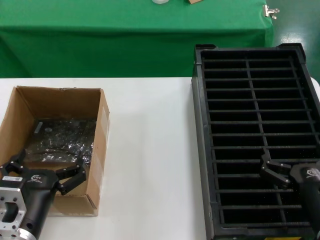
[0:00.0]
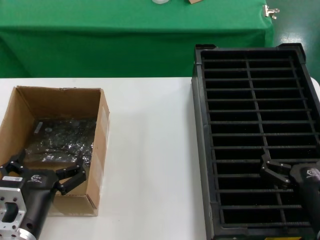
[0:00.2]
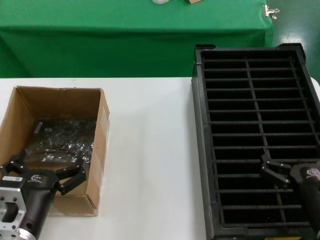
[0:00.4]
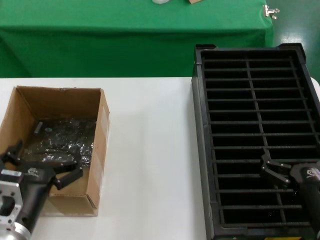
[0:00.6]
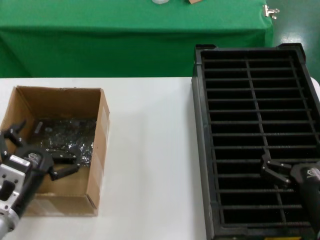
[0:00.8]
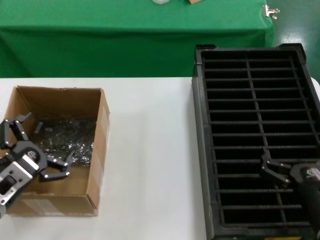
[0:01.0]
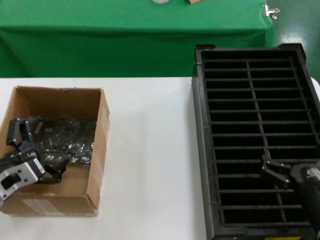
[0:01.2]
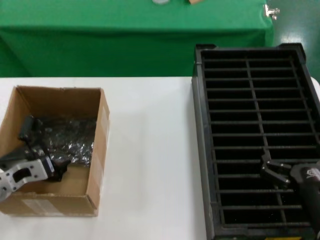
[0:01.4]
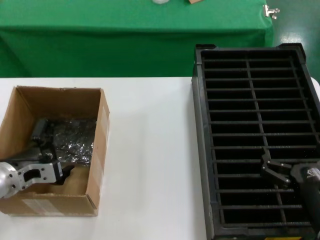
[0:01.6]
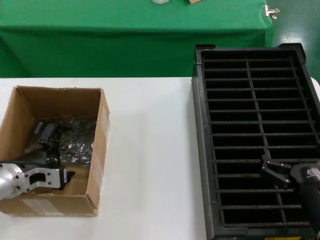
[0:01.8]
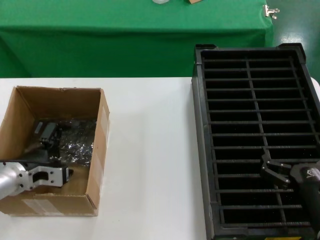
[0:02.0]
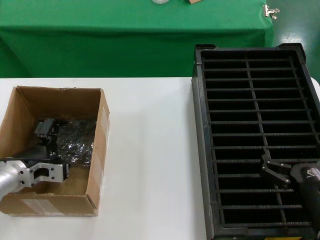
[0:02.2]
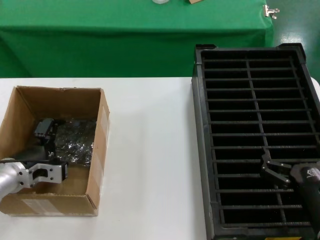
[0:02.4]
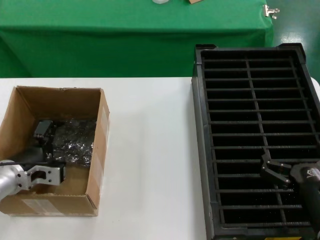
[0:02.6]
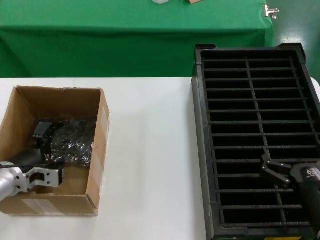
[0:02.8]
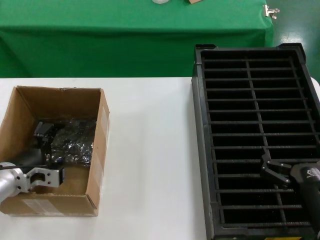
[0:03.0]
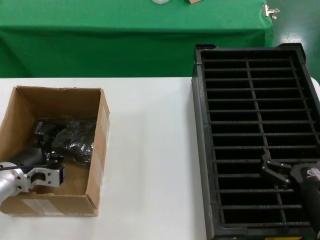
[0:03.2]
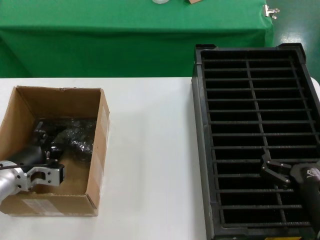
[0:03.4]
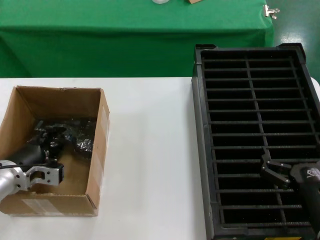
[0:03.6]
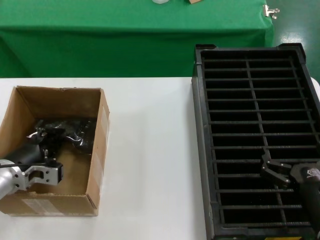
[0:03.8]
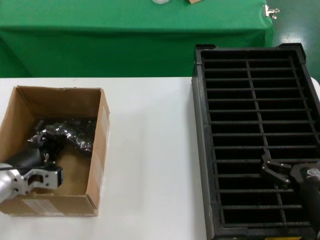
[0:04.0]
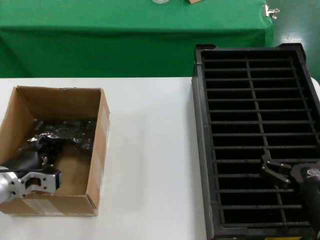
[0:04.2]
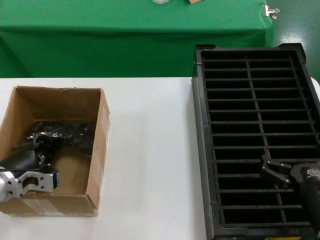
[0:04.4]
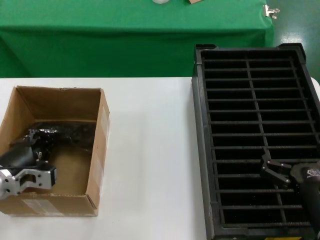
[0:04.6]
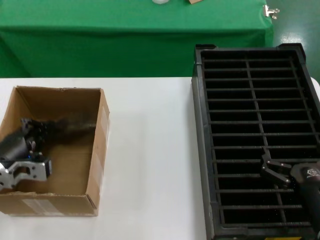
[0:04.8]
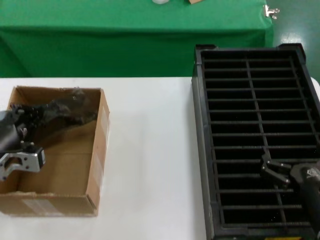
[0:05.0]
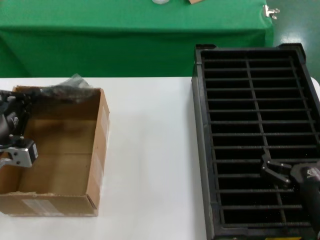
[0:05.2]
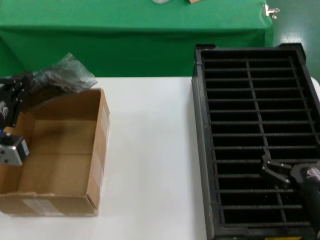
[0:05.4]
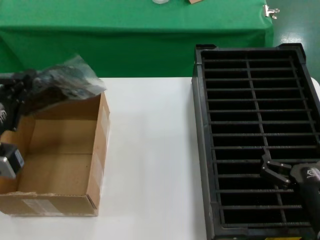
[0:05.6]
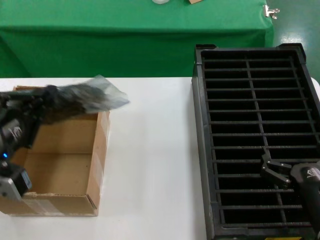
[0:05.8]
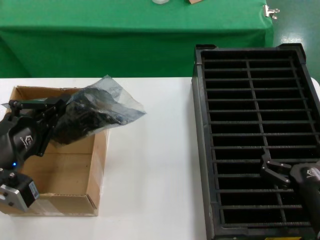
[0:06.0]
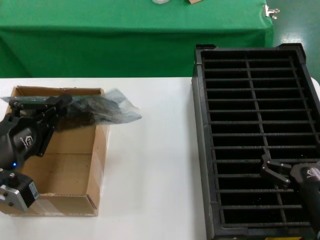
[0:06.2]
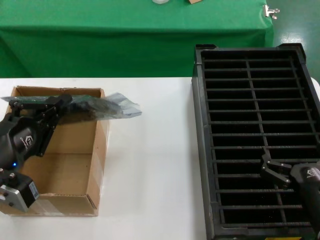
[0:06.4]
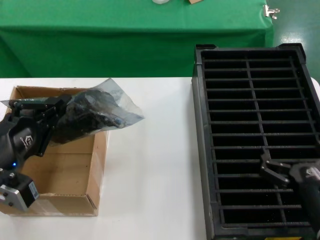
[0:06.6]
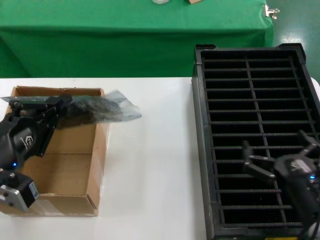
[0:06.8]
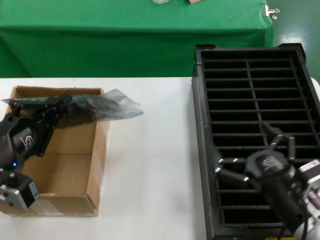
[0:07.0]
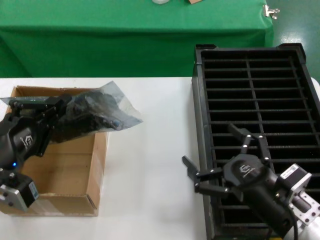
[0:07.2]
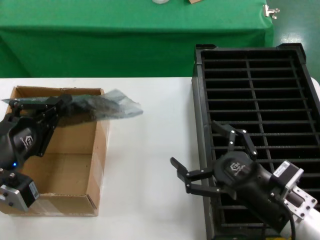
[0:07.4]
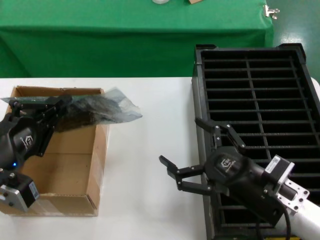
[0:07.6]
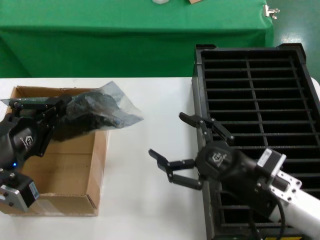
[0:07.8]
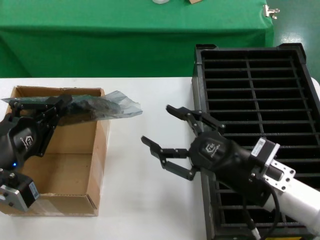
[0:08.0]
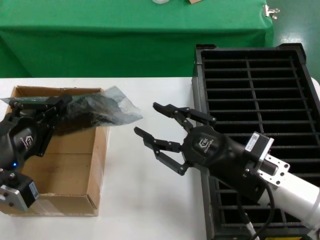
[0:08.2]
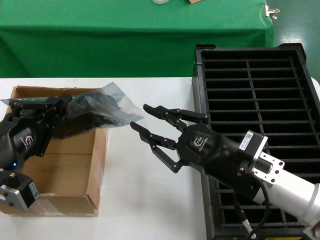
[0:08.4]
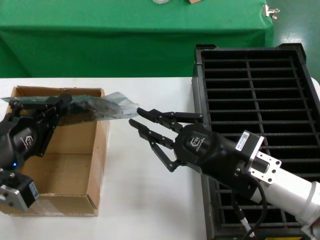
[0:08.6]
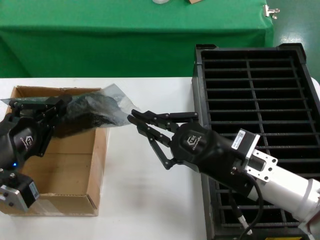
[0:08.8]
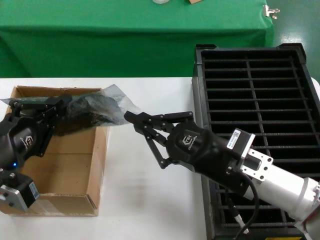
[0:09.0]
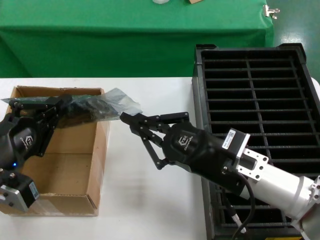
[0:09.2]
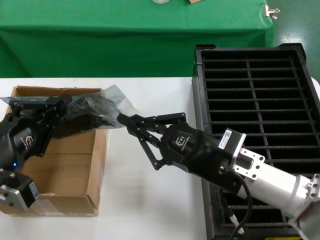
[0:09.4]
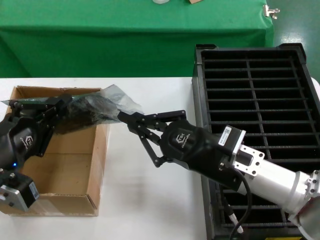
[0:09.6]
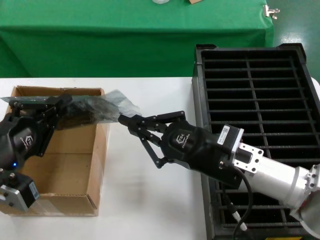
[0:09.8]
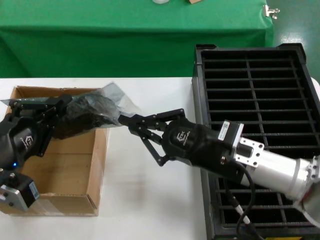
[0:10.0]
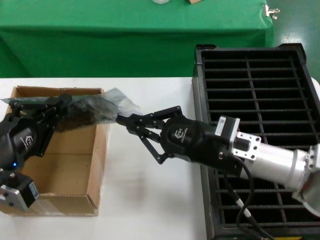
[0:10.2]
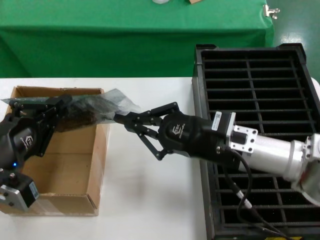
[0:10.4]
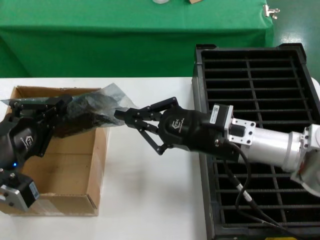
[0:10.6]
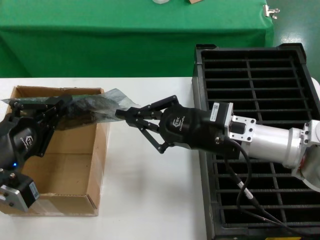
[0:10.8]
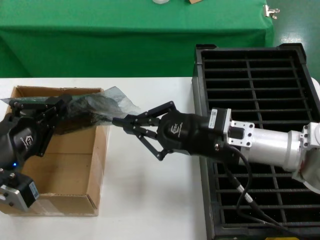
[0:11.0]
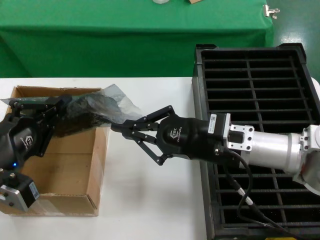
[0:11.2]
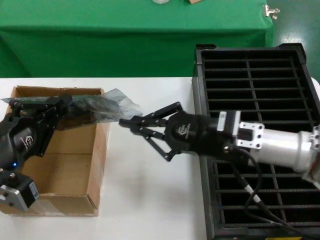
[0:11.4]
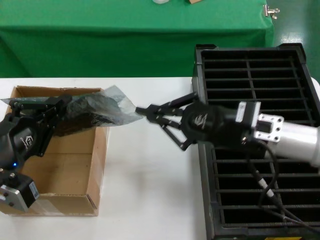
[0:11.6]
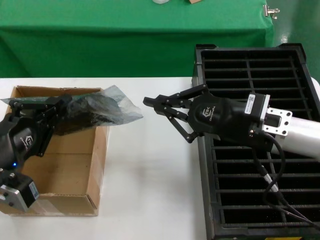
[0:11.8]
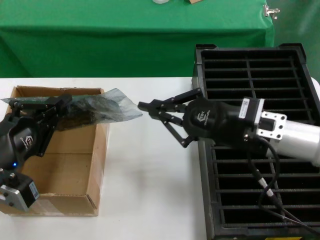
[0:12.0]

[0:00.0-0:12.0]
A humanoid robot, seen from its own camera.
Task of the whole recording: take out graphics card from box remove packaging put into black container.
Step, 0:00.0 to 0:03.8: Grasp the bag.
Step, 0:04.0 to 0:06.4: Lift the bag.
0:00.0 to 0:01.6: The left hand goes roughly 15 cm forward and to the left.
0:01.6 to 0:04.4: The hands move only a little.
0:04.4 to 0:06.0: The left hand shifts about 20 cm backward and upward.
0:06.0 to 0:07.6: The right hand changes place by about 5 cm.
0:07.6 to 0:09.0: The right hand changes place by approximately 10 cm.
0:09.0 to 0:10.4: The right hand heads forward, covering about 5 cm.
0:10.4 to 0:12.0: The right hand moves about 5 cm.

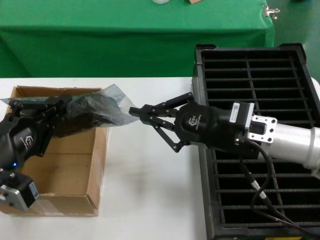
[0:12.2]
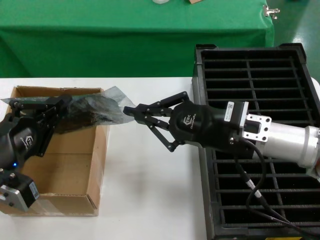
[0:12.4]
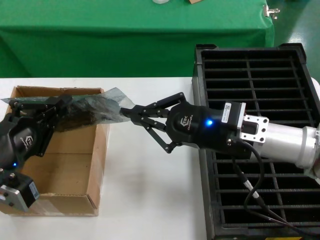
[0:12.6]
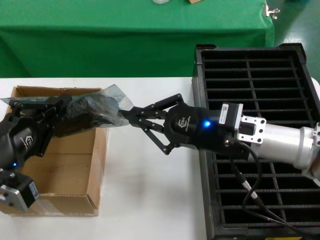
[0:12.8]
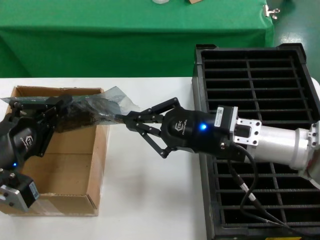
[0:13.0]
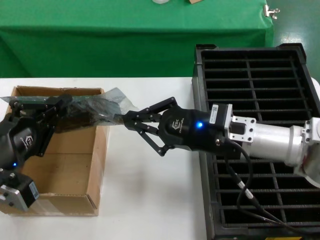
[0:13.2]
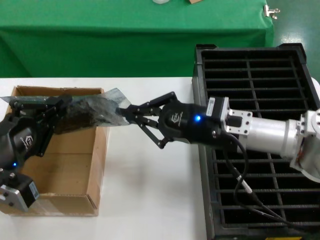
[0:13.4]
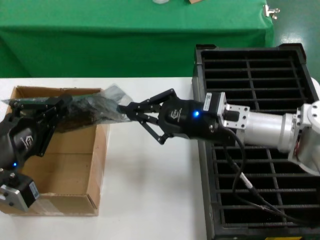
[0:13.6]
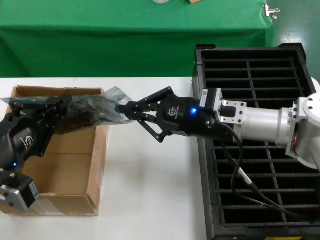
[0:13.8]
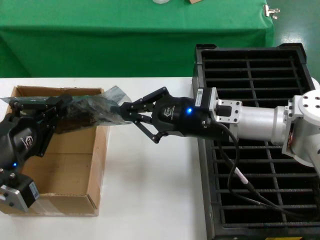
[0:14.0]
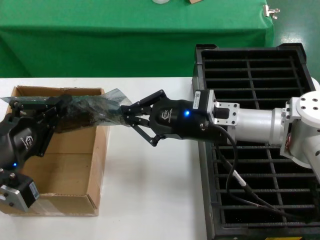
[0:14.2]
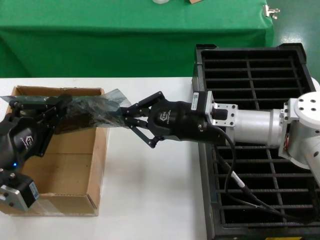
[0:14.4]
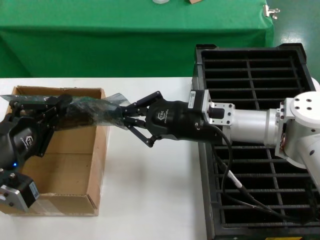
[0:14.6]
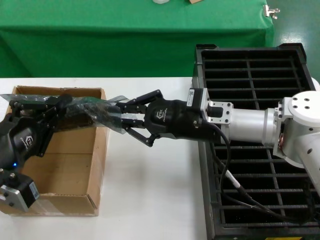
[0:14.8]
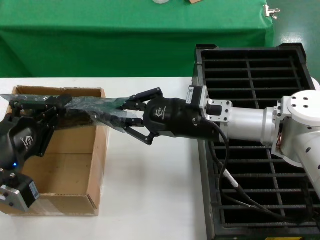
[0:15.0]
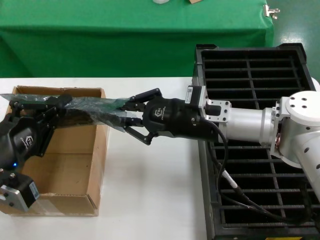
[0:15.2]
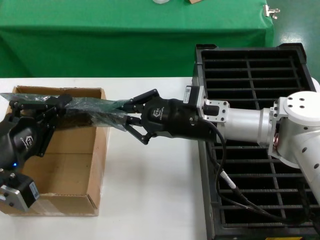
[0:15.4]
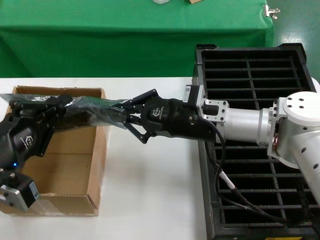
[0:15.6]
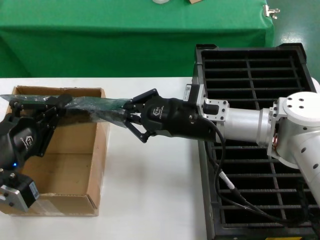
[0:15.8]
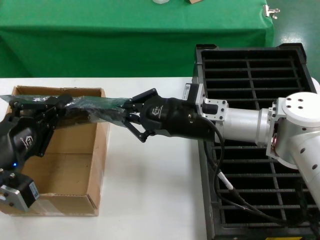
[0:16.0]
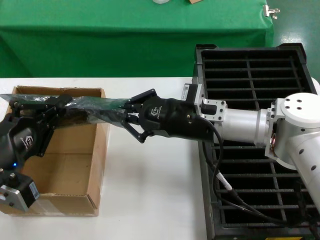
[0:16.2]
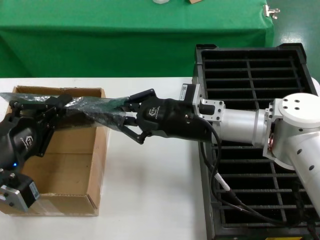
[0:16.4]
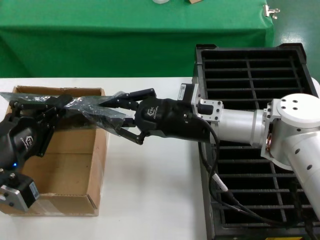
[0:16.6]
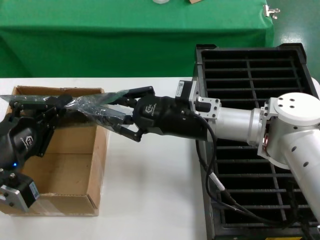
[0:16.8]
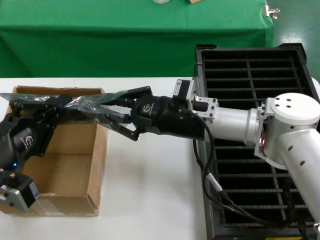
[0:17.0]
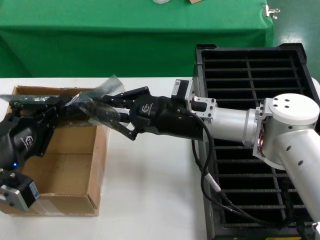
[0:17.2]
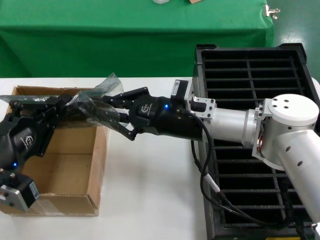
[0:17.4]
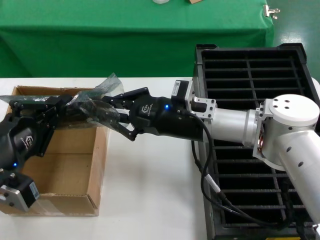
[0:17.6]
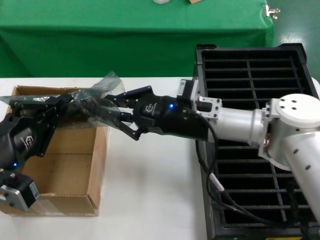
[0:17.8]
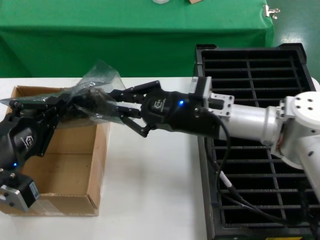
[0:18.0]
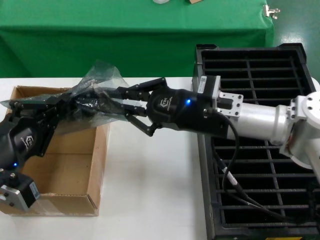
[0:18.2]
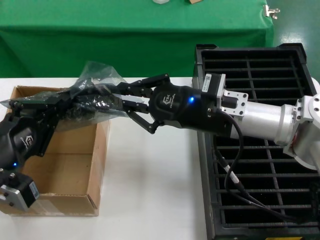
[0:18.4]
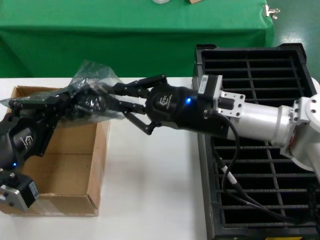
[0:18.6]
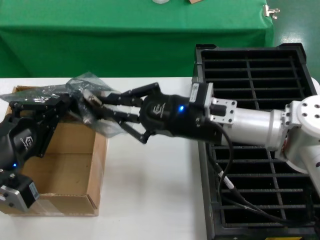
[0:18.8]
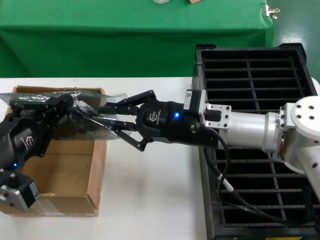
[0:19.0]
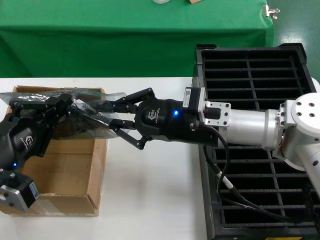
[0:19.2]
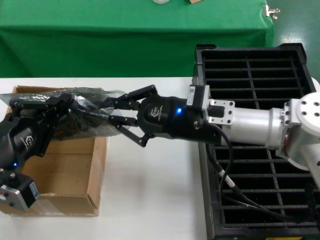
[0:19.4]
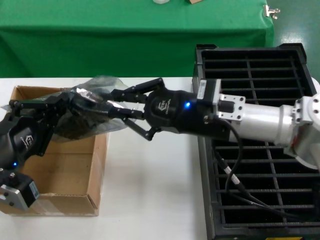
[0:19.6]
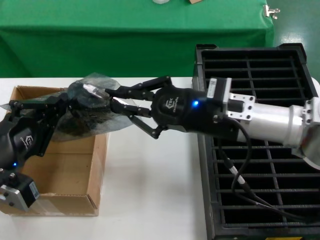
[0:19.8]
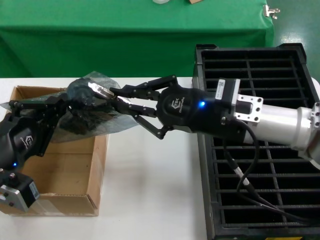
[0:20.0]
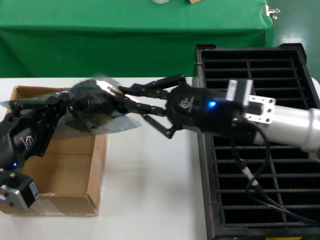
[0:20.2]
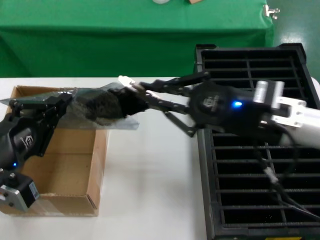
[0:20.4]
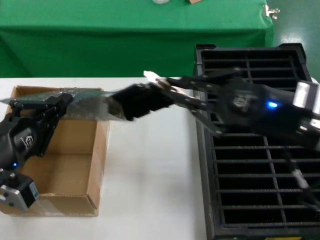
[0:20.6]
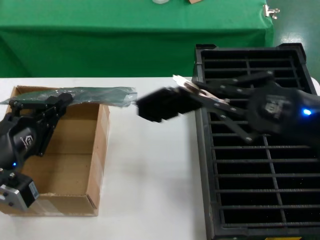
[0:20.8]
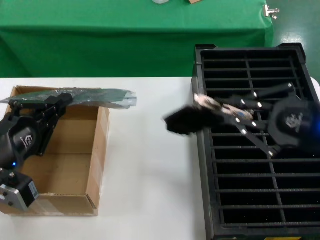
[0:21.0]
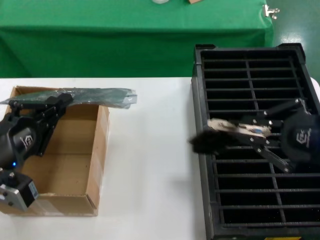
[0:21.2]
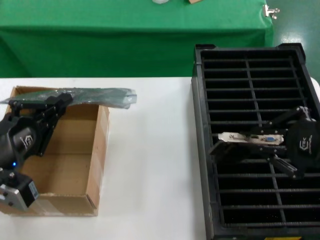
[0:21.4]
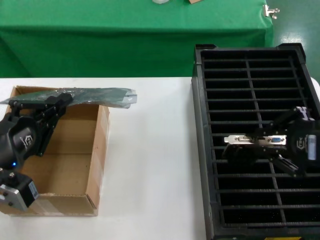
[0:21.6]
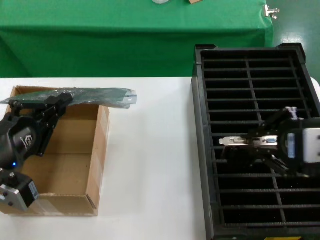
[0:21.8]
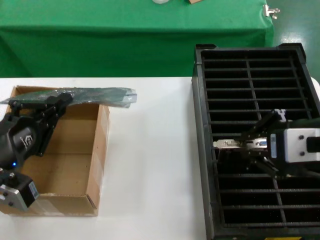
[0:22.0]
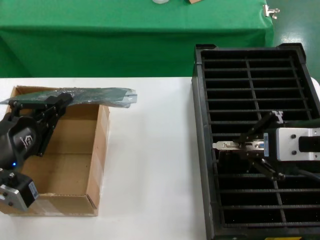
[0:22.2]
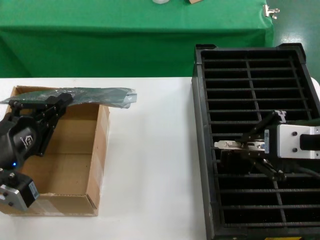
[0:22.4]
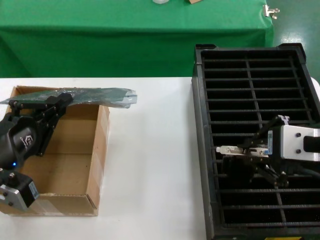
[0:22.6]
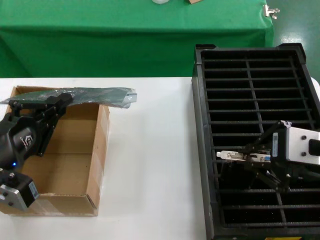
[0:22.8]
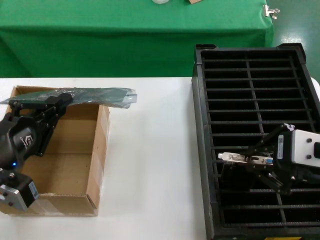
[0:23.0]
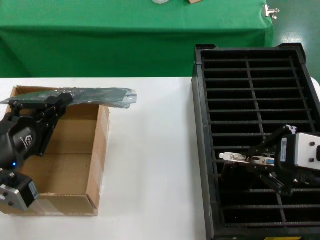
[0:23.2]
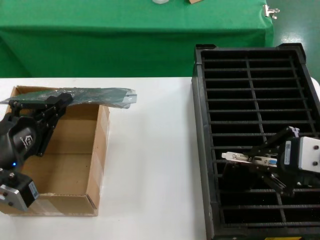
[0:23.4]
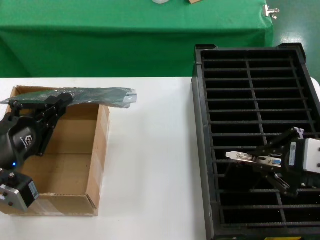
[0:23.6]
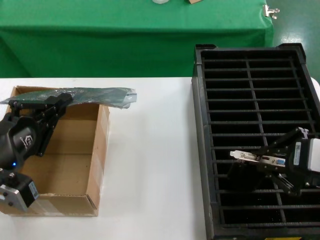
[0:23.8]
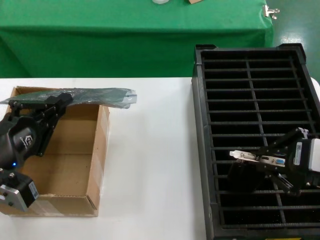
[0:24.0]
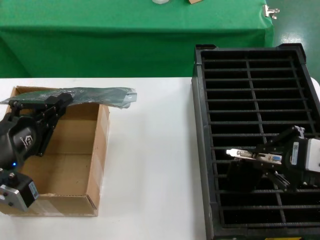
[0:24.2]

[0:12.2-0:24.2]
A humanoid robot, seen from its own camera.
Task of the whole recording: take out graphics card from box remove packaging put into black container.
Step, 0:12.2 to 0:20.6: Take out the hard disk of the bag.
0:12.2 to 0:13.8: The right hand moves about 5 cm.
0:13.8 to 0:19.8: There are only small adjustments of the hands.
0:19.8 to 0:21.2: The right hand moves to the right and backward, roughly 20 cm.
0:21.2 to 0:22.6: The right hand is displaced to the left by approximately 10 cm.
0:22.6 to 0:24.2: The right hand ends up some 5 cm from where it was.
